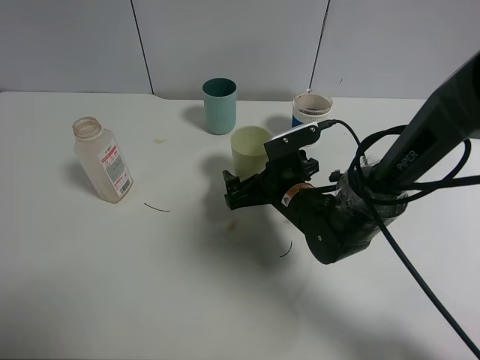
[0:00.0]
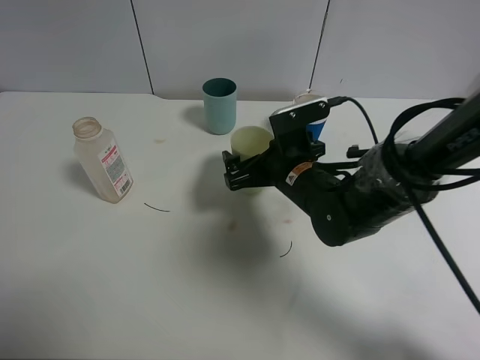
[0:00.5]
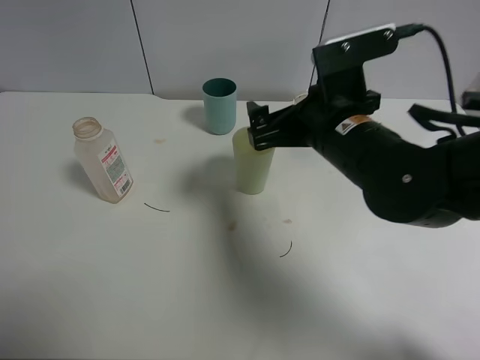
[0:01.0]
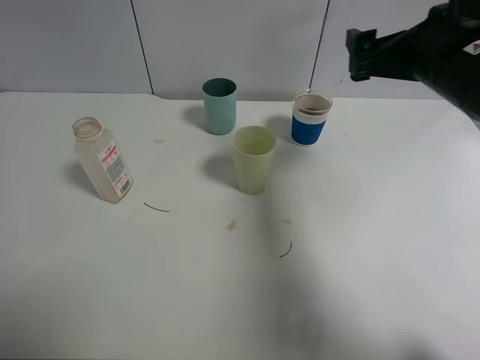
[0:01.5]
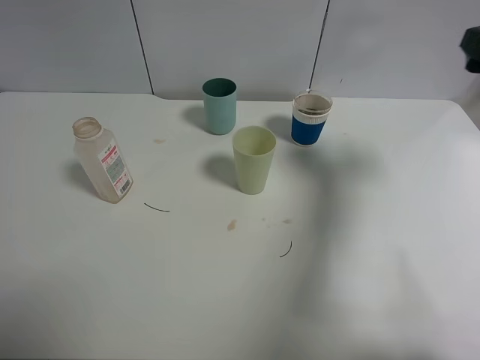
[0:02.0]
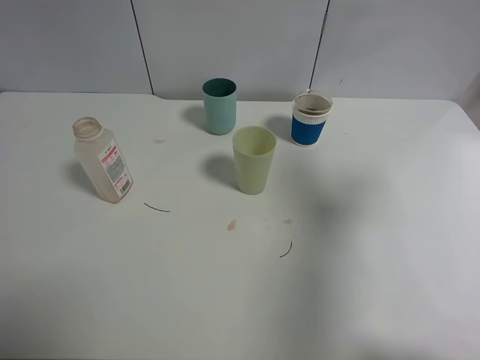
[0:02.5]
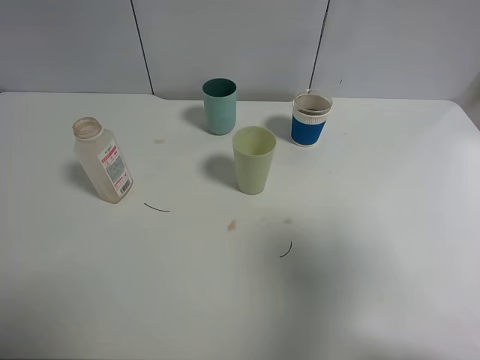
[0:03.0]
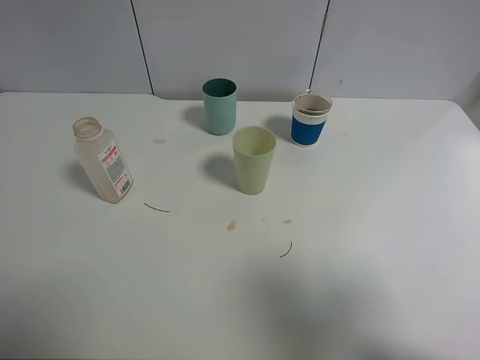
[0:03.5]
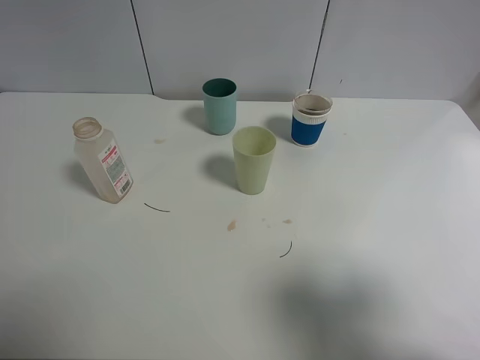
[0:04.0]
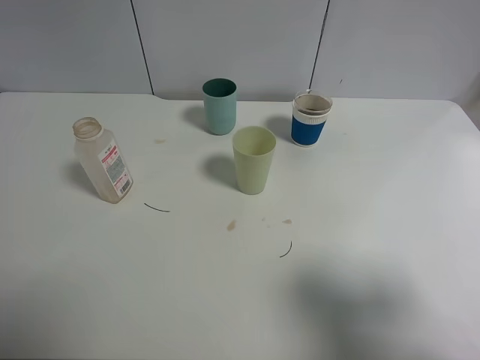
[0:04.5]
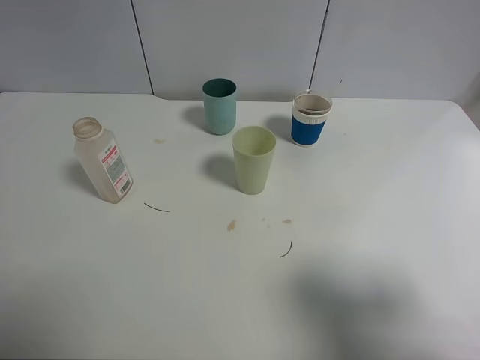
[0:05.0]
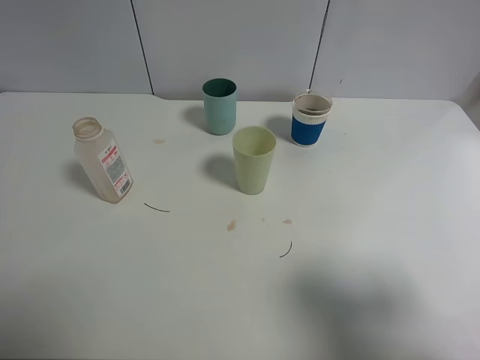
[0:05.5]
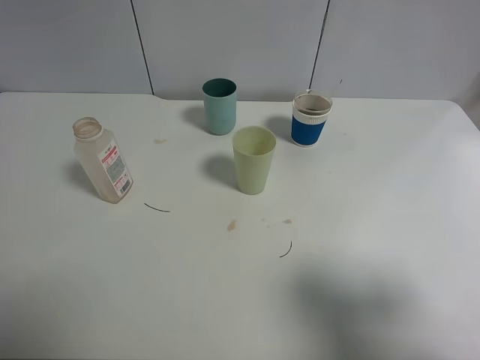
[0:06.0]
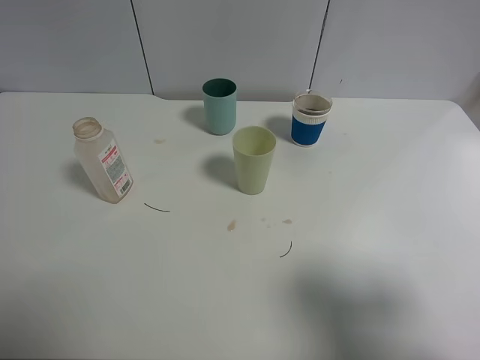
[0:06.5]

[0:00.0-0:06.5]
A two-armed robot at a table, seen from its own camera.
Task of the whole recording: use a clamp to hold the bottle of the drink, pour the beverage into a random cup, then clamp the cup containing the drink and pour the drink into another random cup.
0:00.0 to 0:02.0: The right gripper heads to the right and upward, covering roughly 35 cm.
0:02.0 to 0:04.5: The right gripper shifts roughly 25 cm backward.
0:04.5 to 0:06.5: Neither gripper changes place.
